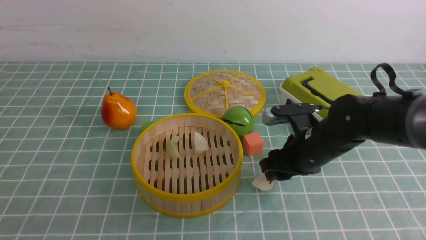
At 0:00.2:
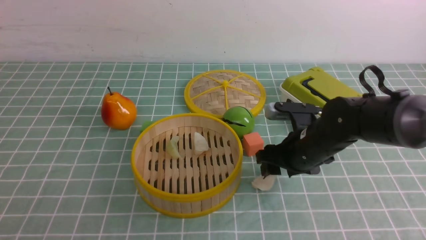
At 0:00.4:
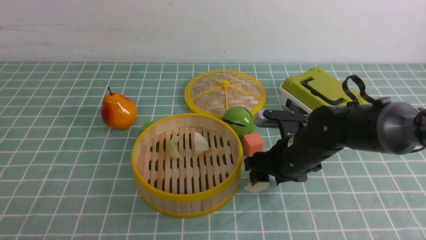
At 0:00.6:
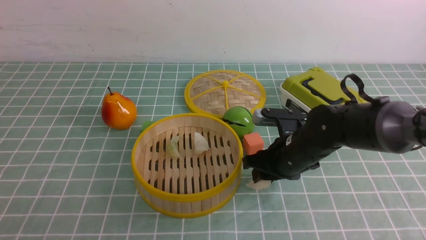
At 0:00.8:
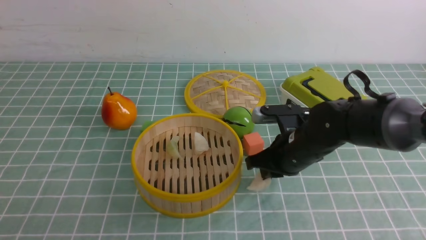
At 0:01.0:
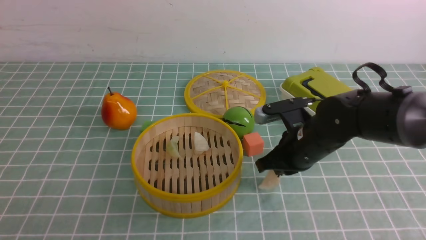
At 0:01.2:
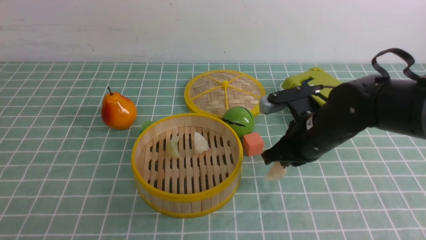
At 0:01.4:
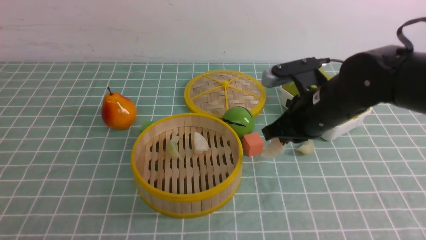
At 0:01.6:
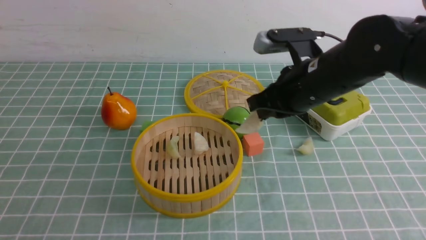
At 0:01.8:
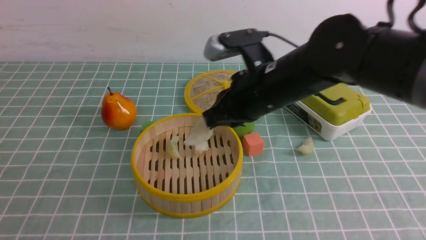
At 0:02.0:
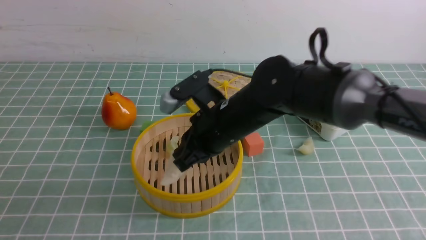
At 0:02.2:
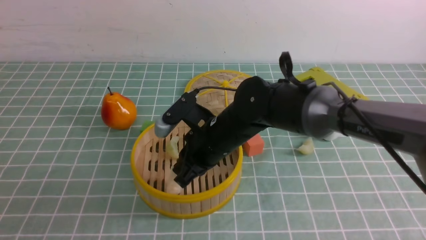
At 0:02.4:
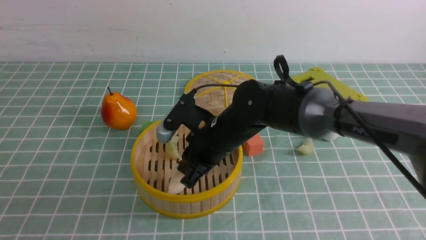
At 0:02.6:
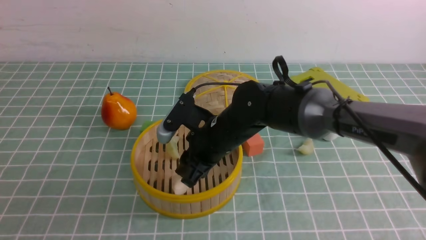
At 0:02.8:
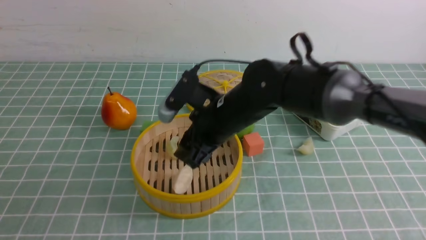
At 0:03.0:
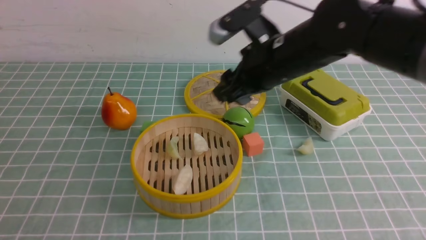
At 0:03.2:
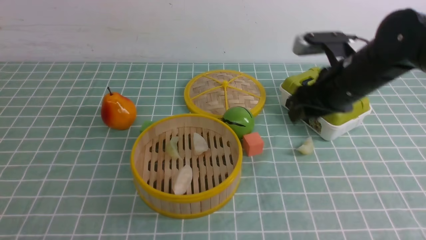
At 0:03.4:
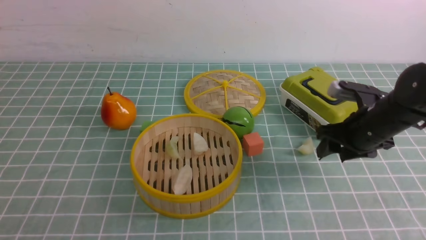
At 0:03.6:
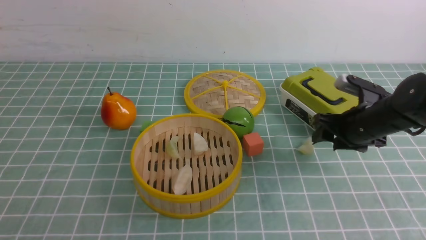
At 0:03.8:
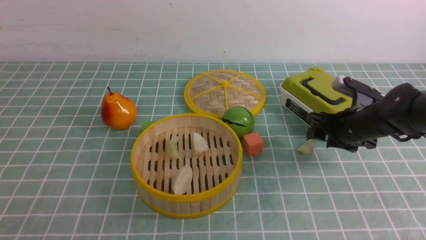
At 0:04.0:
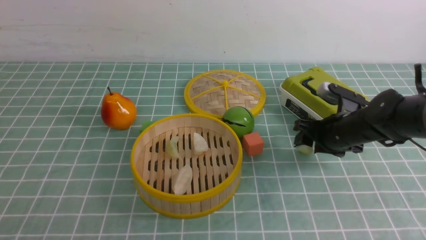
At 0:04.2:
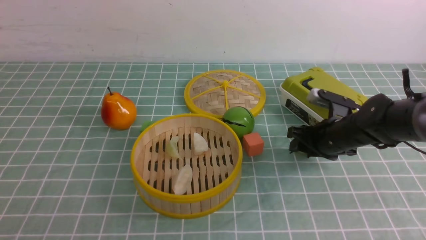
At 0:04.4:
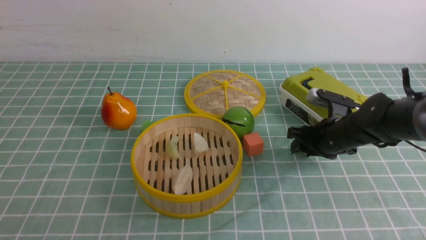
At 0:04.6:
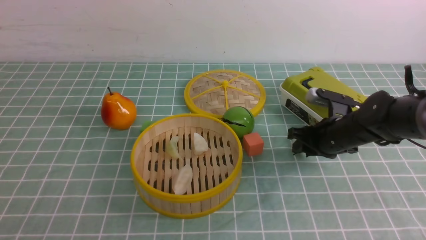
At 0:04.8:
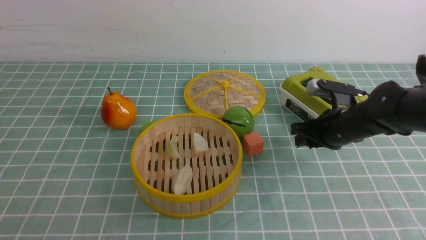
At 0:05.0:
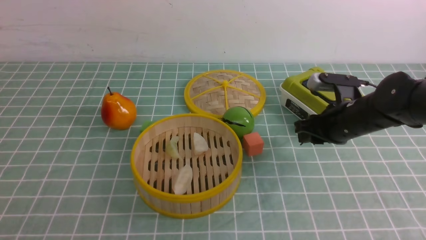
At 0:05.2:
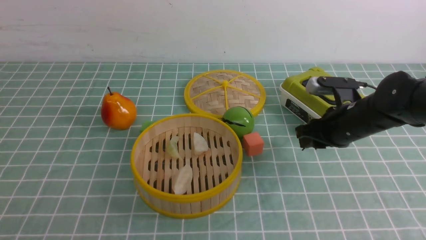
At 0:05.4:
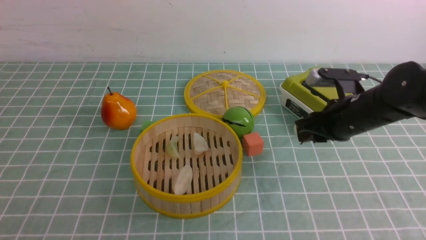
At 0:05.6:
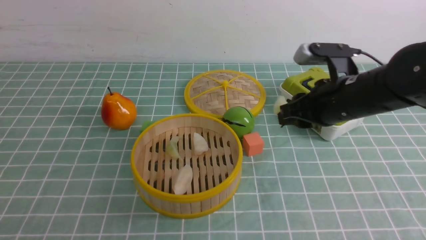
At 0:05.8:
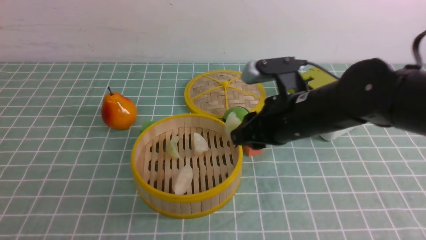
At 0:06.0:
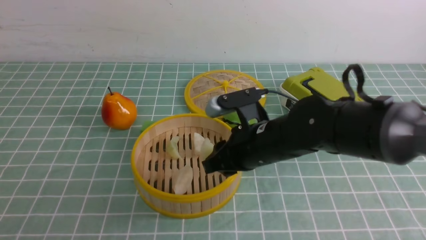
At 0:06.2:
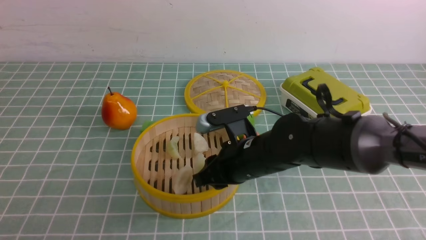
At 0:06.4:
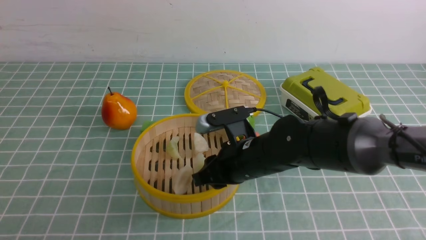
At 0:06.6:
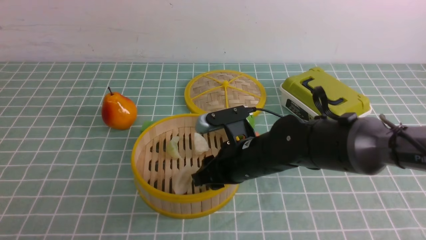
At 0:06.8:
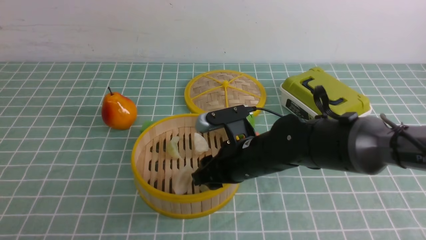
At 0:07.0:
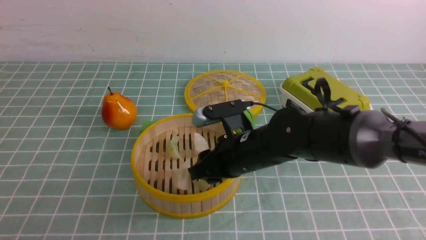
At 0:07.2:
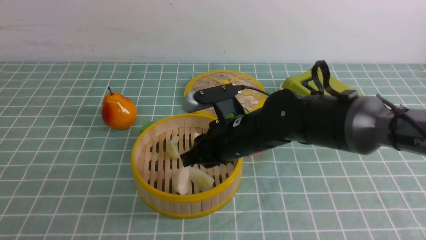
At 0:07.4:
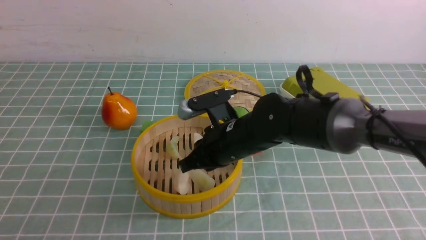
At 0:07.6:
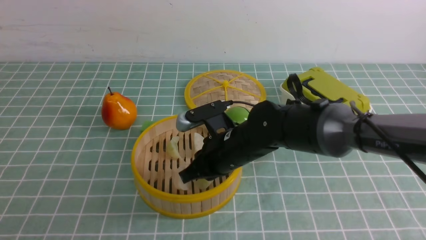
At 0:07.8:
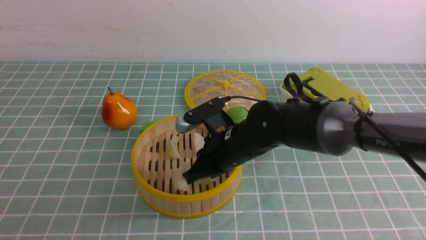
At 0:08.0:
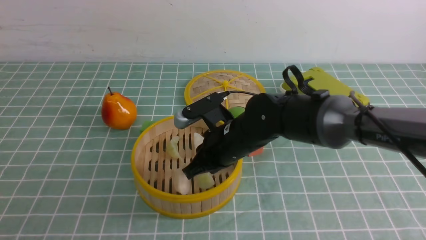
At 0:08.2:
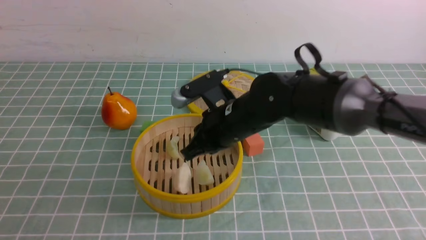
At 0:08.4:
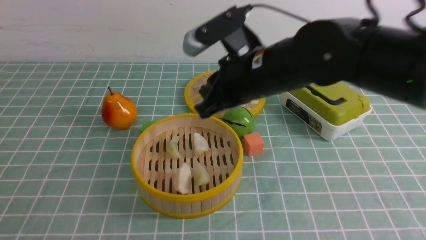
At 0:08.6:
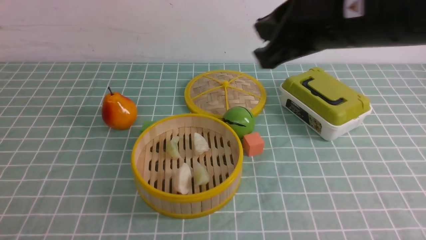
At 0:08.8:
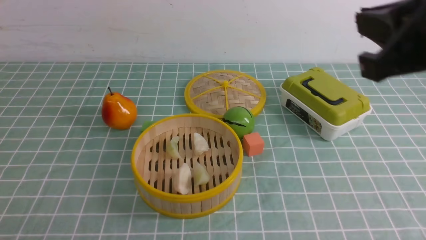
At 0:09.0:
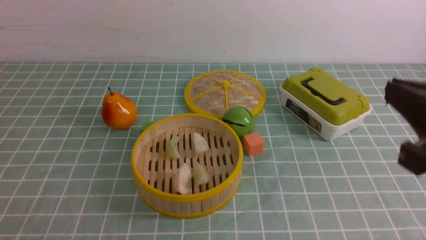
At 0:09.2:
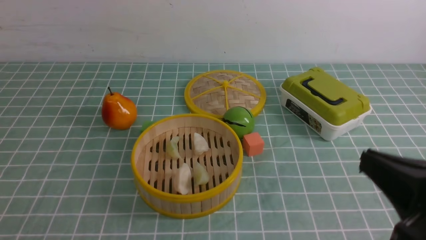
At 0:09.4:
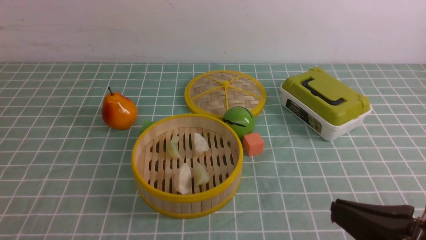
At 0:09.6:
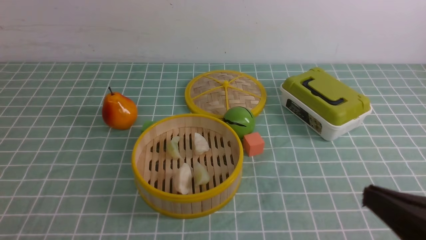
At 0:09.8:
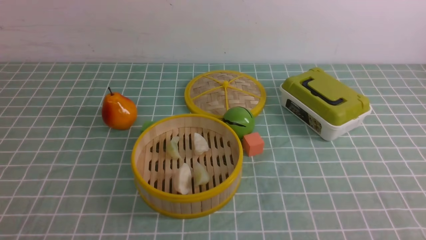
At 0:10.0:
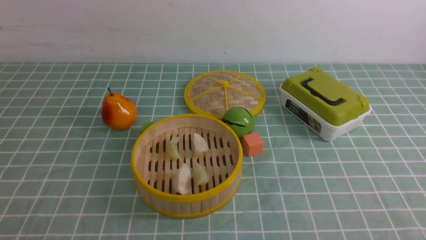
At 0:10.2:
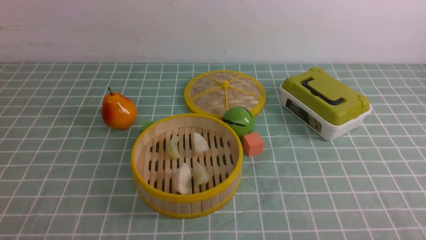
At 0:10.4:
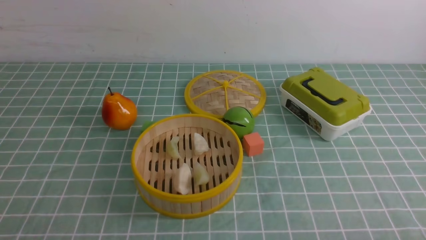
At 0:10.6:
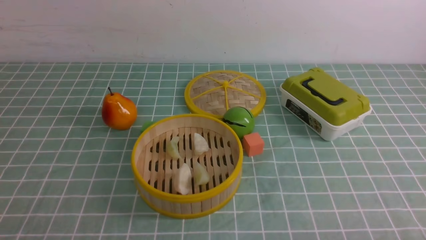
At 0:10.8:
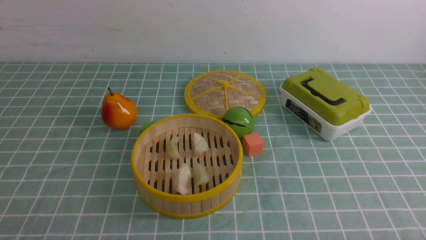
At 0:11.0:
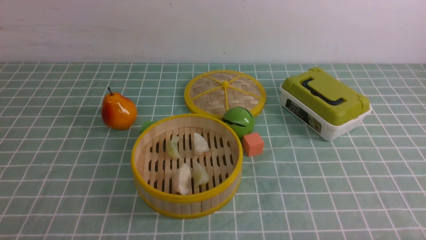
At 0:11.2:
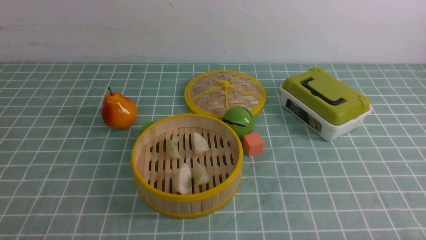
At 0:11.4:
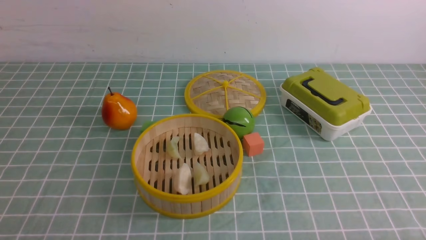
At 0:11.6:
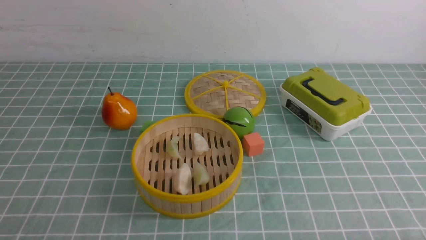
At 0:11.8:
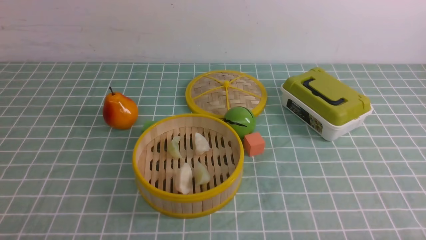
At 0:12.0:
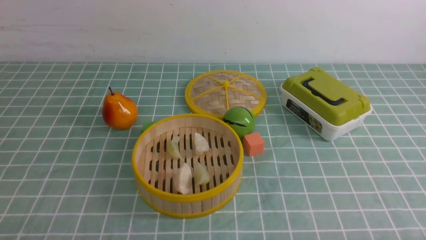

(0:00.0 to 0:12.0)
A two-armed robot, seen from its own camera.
Task of the whole recording: put the dumplings into the steamer on the table with the blue tablecloth.
Step, 0:01.0 - 0:02.6: use the right arm to put the dumpling into the steamer.
Step, 0:03.0 - 0:04.2: use the right arm to grab a dumpling.
Step, 0:04.4 - 0:08.2: use the right arm to put the dumpling into the steamer.
0:00.0 - 0:01.6: The left gripper travels downward by roughly 5 cm. The right gripper is displaced upward by some 10 cm, and closes its fingers.
0:01.6 - 0:03.0: The right gripper travels to the left and back again, about 10 cm each way, and opens its fingers.
0:03.0 - 0:04.4: The right gripper is displaced downward and to the right by approximately 20 cm.
0:04.4 - 0:06.0: The right gripper goes some 20 cm to the left, backward and upward.
0:06.0 - 0:07.6: The right gripper ends up roughly 5 cm from where it was, and closes.
0:07.6 - 0:09.0: The right gripper shifts roughly 30 cm backward, to the right and upward.
0:09.0 - 0:10.4: The right gripper moves downward, backward and to the right, about 20 cm.

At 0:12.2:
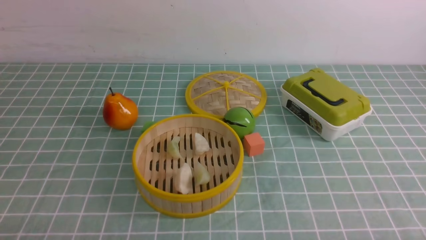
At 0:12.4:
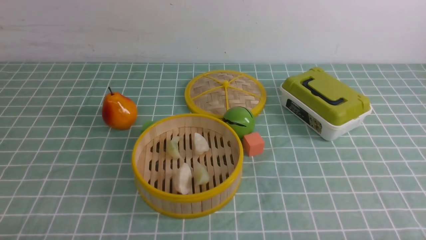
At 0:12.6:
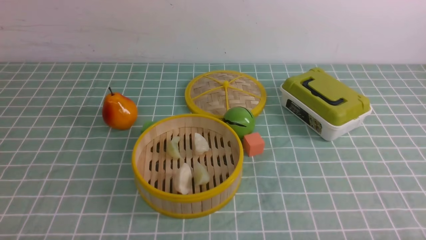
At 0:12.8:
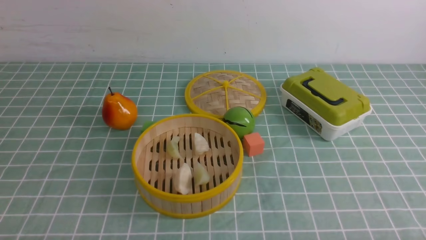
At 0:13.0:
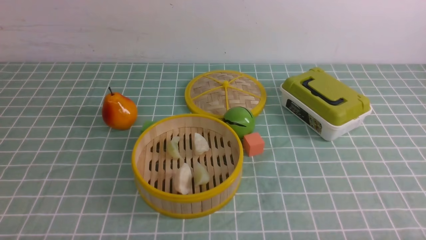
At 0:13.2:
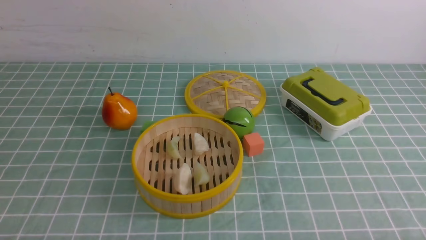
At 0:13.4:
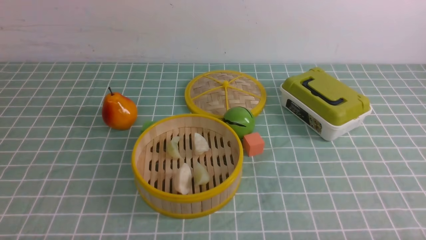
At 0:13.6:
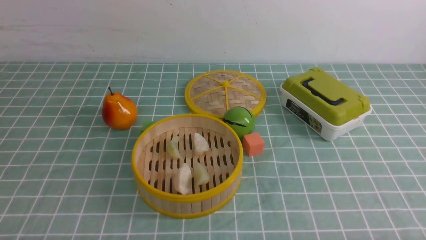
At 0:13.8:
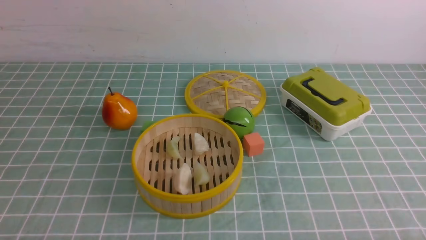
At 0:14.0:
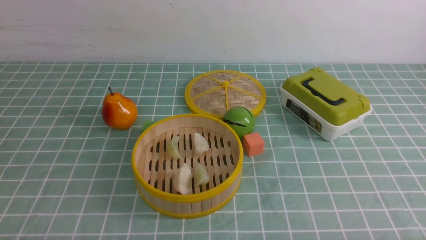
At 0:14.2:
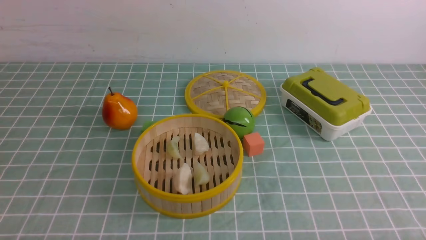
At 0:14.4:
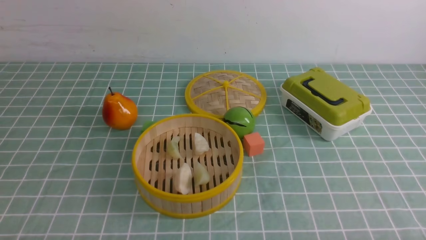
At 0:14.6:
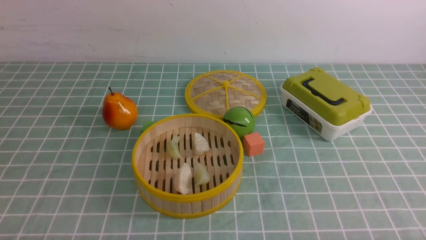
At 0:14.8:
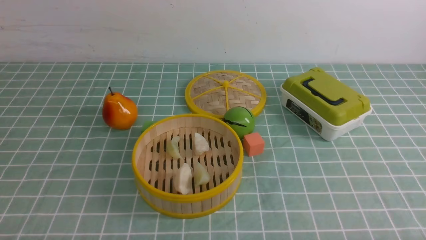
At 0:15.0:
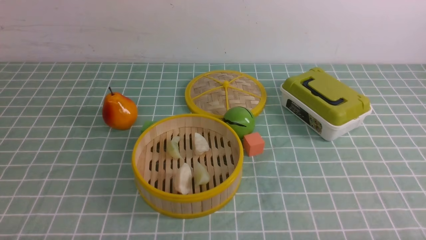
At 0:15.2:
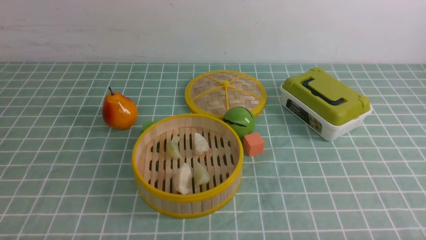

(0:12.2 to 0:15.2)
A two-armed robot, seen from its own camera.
Task of the whole recording: put the dumplings into the steamer on the table with the blue tablecloth.
0:13.8 - 0:15.2: Neither gripper changes place.
